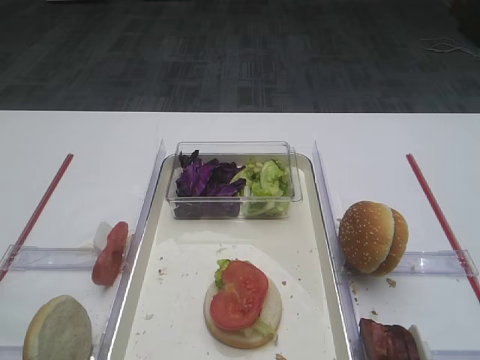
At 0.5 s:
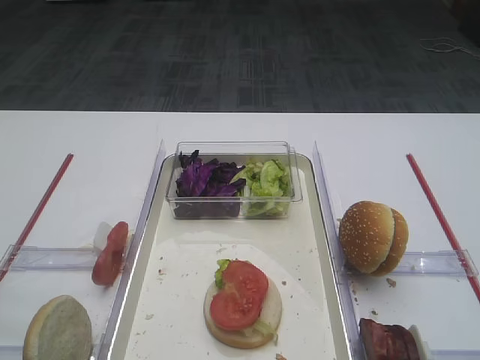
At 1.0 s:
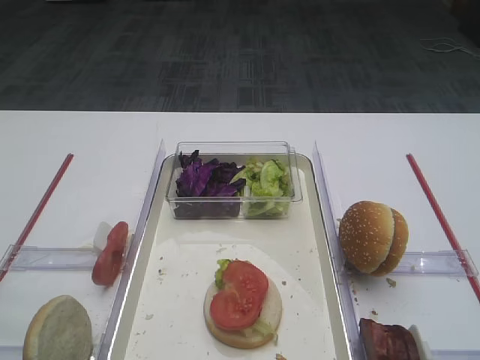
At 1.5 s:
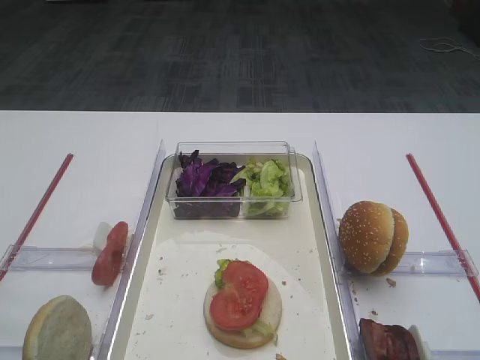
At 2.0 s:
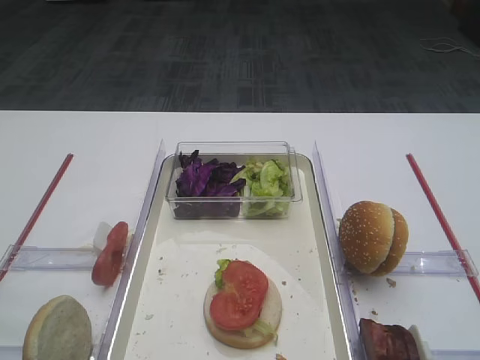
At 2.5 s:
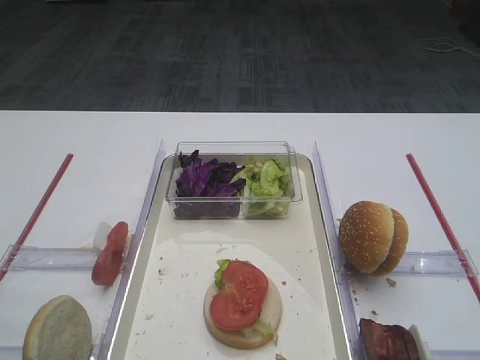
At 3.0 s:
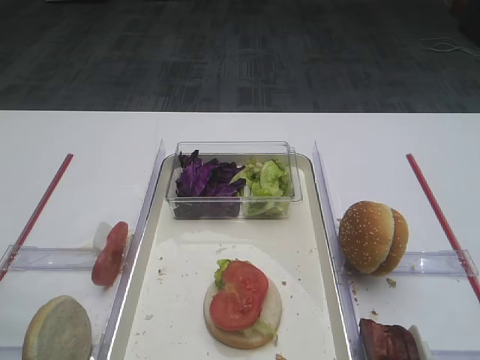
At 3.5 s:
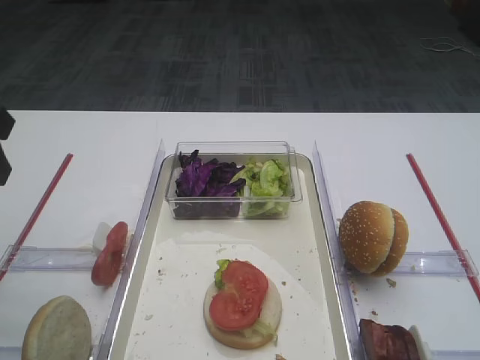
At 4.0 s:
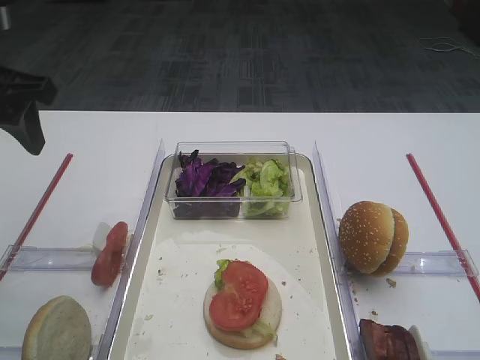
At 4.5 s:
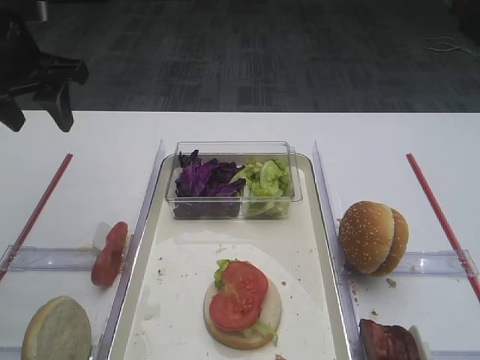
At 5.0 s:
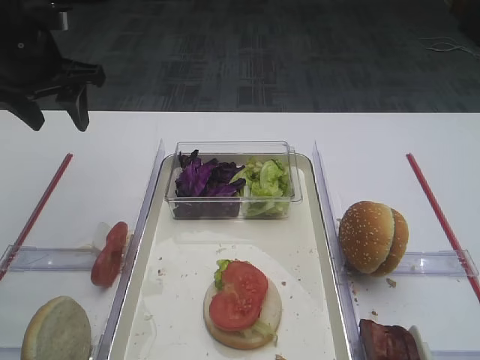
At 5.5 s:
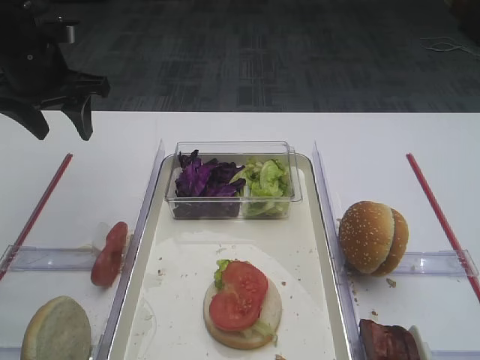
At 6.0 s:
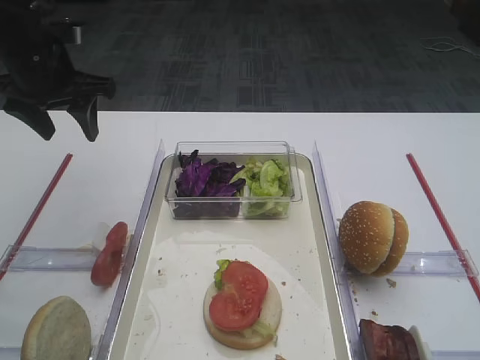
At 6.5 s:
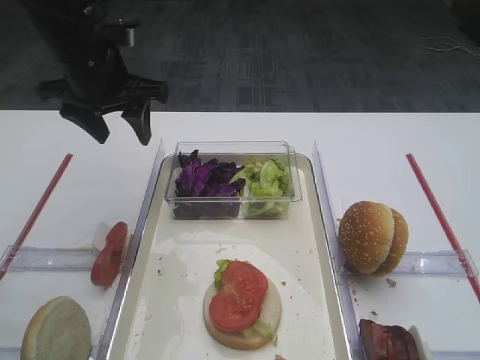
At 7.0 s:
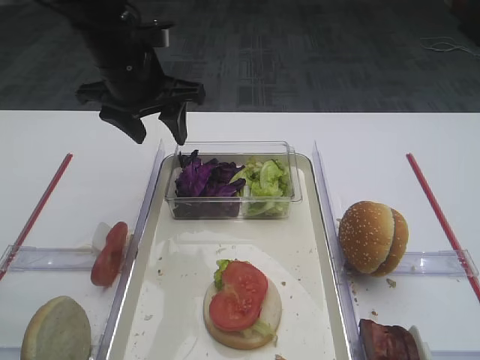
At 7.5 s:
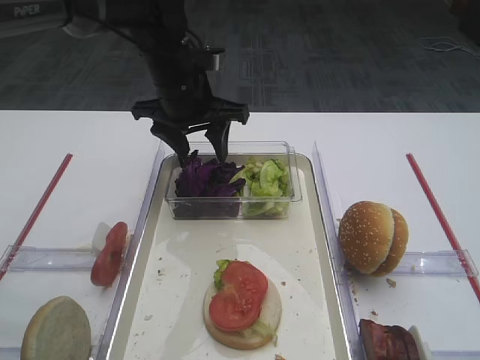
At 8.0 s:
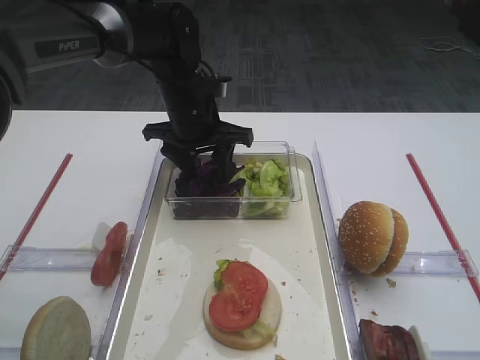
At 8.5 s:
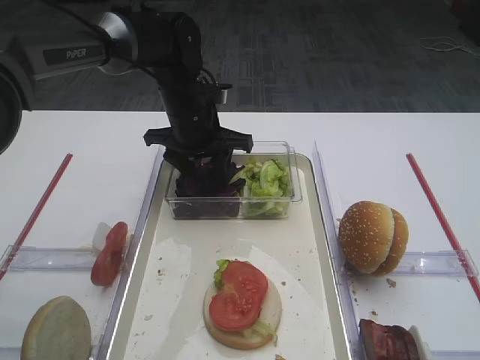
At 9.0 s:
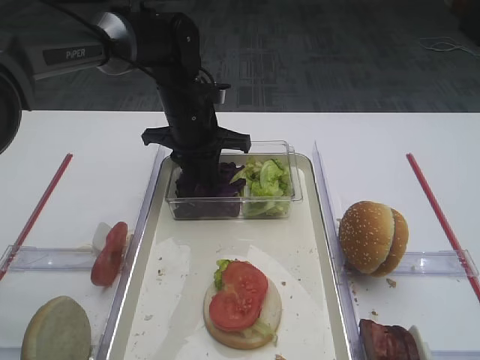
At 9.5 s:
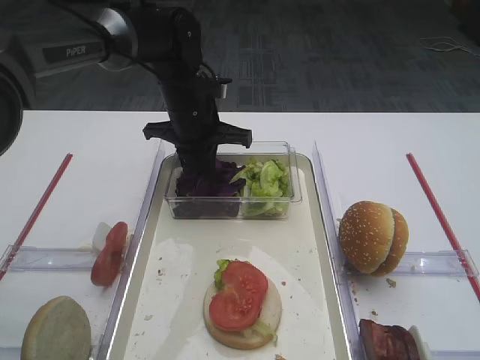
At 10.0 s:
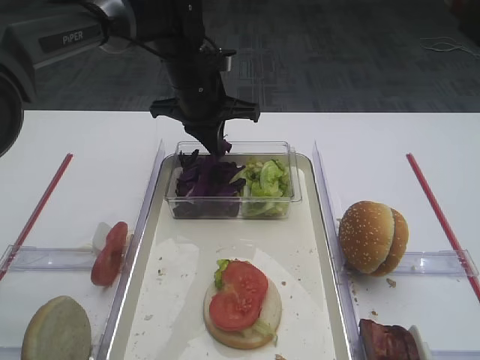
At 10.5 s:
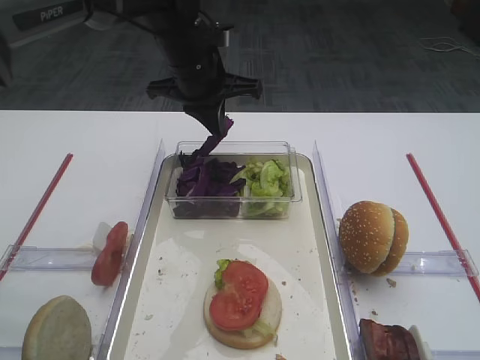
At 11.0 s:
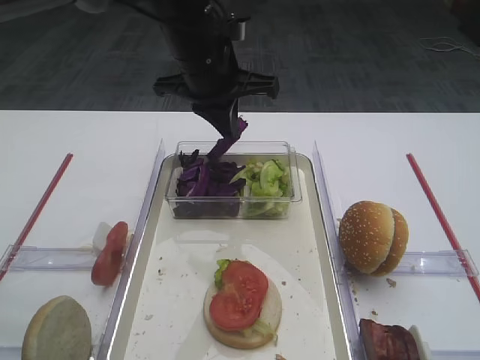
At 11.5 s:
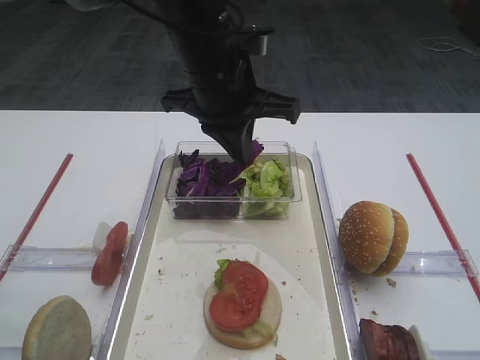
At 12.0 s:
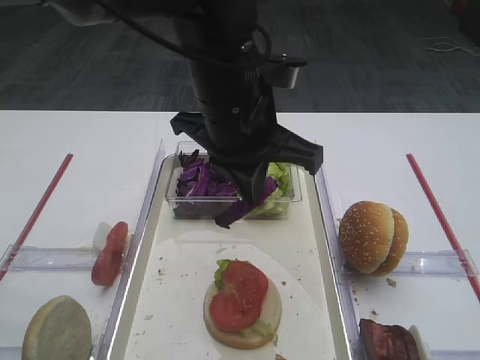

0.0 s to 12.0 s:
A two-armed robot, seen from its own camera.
Step, 0.0 to 10.5 s: Pick up the purple cabbage with the left gripper.
2.0 to 4.0 s: The left gripper moves forward, approximately 30 cm.
4.0 to 6.0 s: The left gripper moves forward, roughly 10 cm.
6.0 to 8.0 s: The left gripper goes some 20 cm to the right and downward.
8.0 to 10.0 s: The left gripper closes up.
10.0 to 12.0 s: The left gripper travels backward and upward by approximately 15 cm.

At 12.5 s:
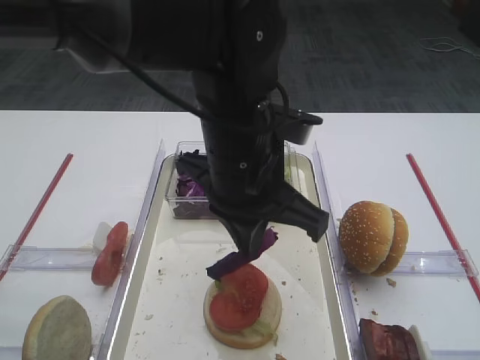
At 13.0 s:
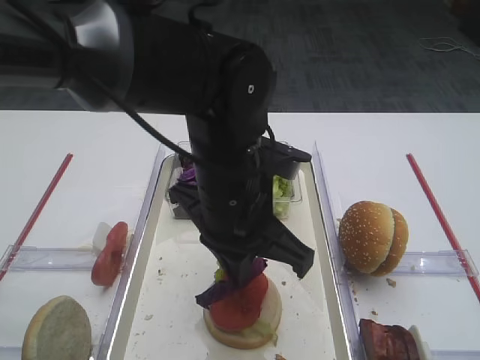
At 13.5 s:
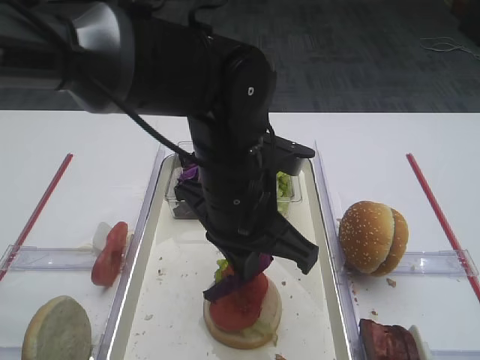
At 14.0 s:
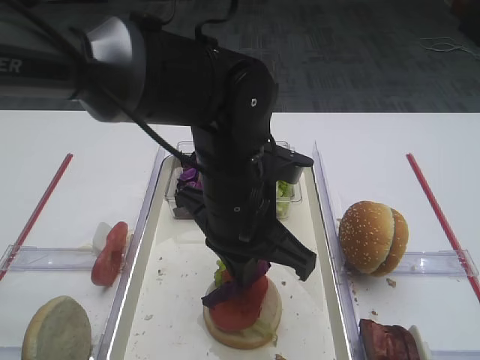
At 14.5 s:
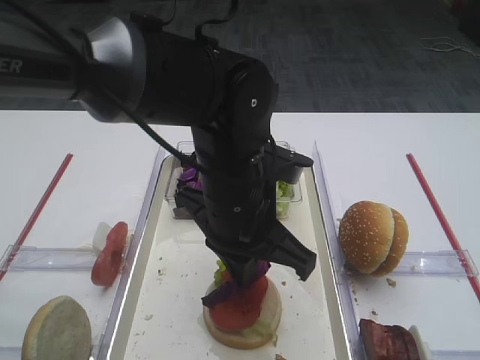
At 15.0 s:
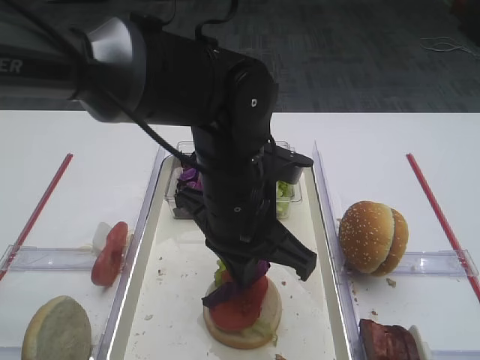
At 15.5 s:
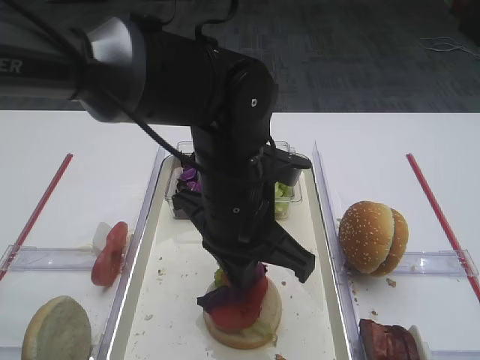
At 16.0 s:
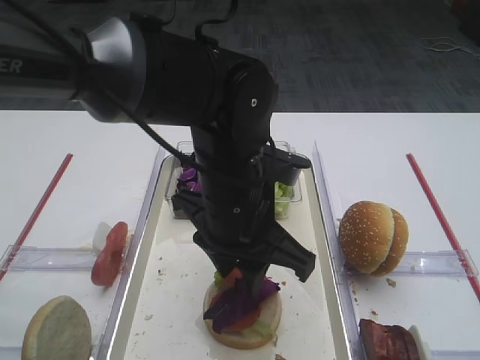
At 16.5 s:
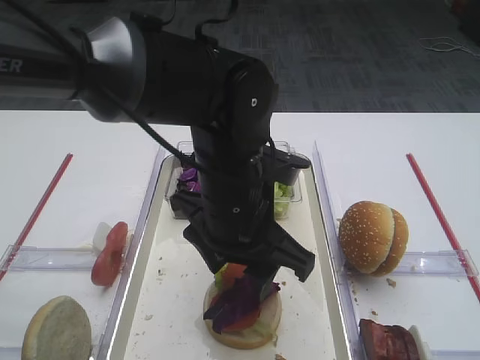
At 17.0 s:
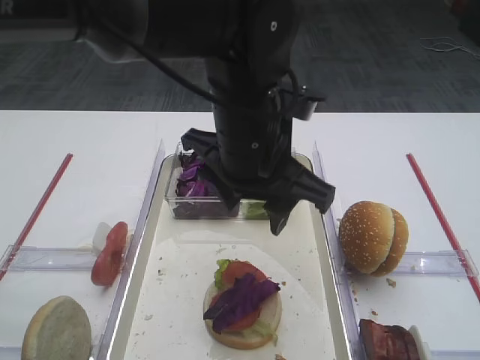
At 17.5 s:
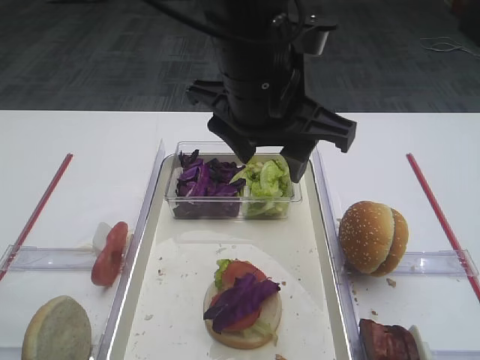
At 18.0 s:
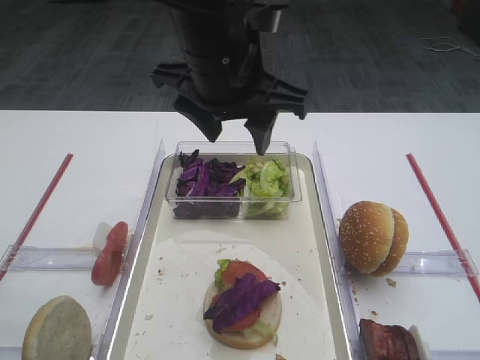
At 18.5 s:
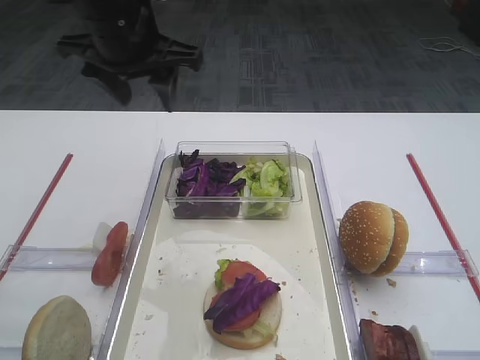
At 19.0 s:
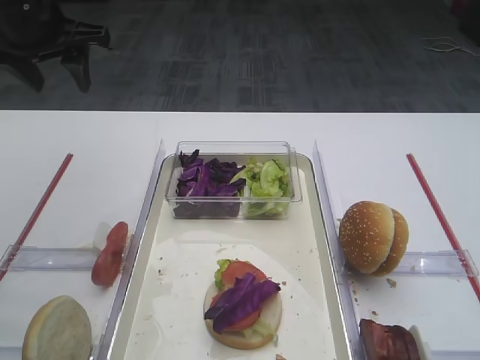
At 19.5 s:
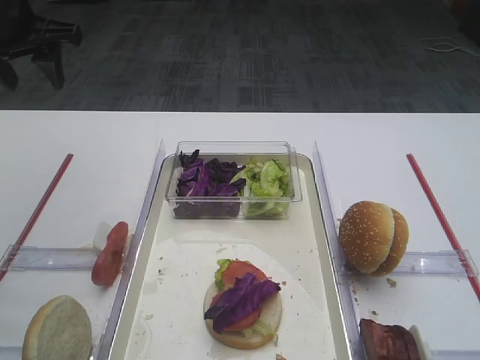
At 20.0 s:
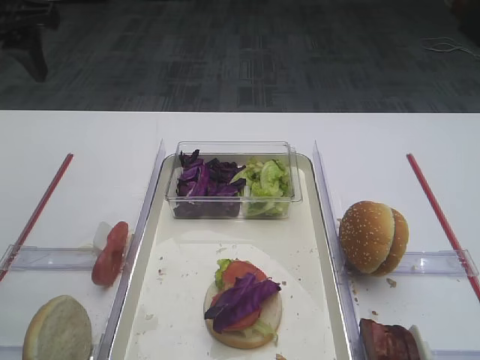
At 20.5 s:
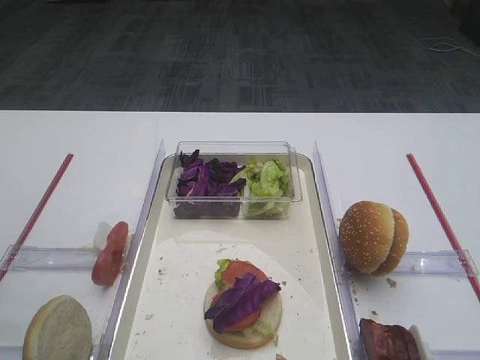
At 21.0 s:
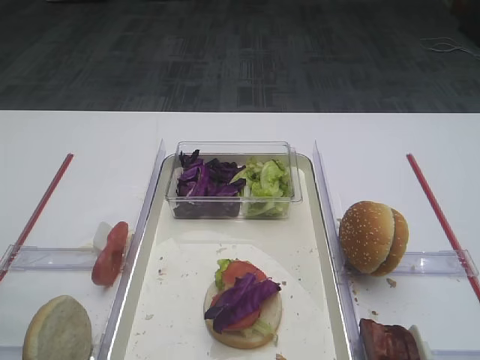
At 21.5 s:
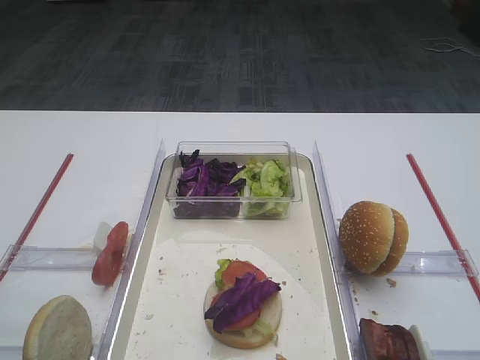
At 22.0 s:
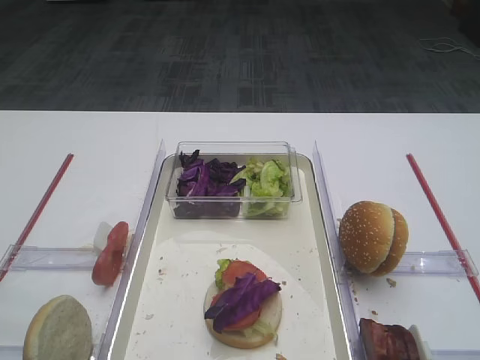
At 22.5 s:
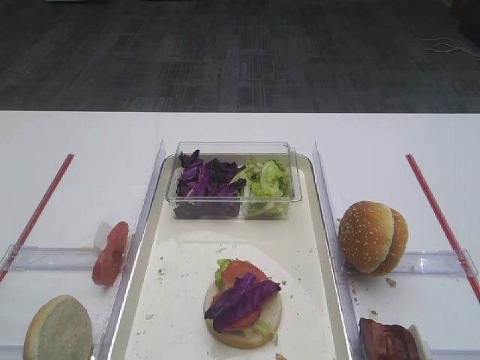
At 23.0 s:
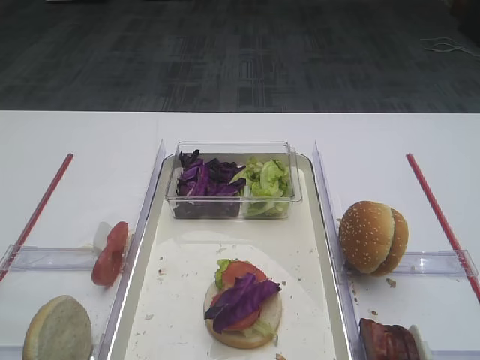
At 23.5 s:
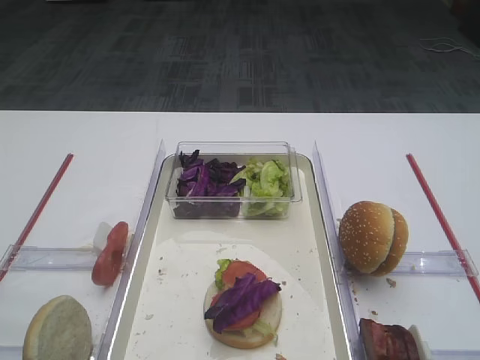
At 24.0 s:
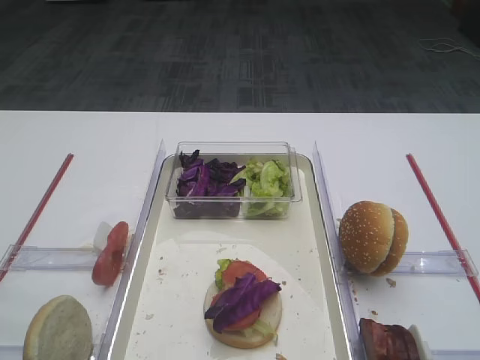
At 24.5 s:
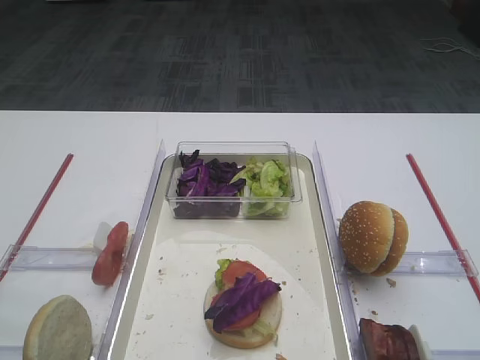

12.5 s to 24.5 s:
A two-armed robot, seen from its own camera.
Step, 12.5 to 16.5 s: Place the purple cabbage on the tomato slice with the left gripper.
12.5 to 14.5 s: The grippers move only a little.
14.5 to 16.5 s: The left gripper opens its fingers.
16.5 to 18.5 s: The left gripper shifts some 20 cm to the left, forward and upward.
18.5 to 20.5 s: The left gripper travels to the left and backward by roughly 20 cm.

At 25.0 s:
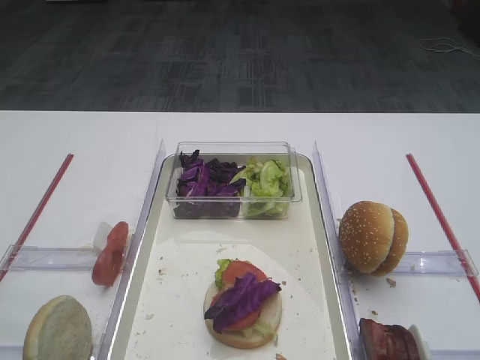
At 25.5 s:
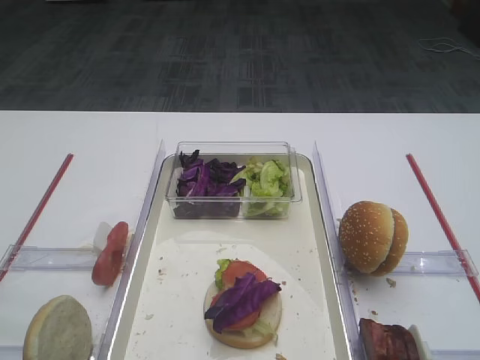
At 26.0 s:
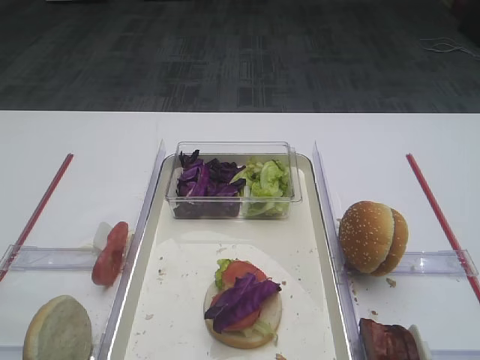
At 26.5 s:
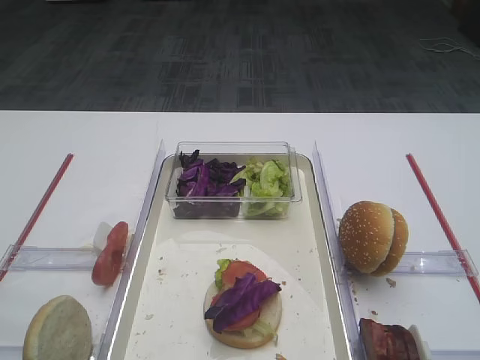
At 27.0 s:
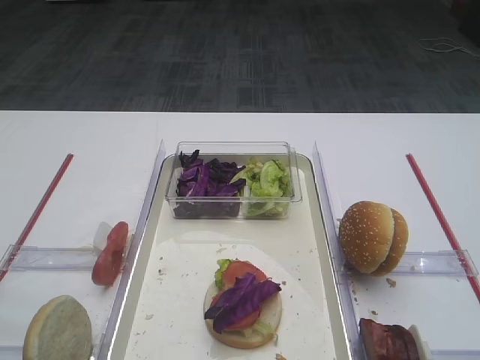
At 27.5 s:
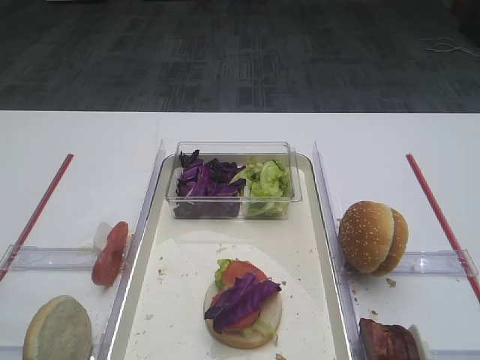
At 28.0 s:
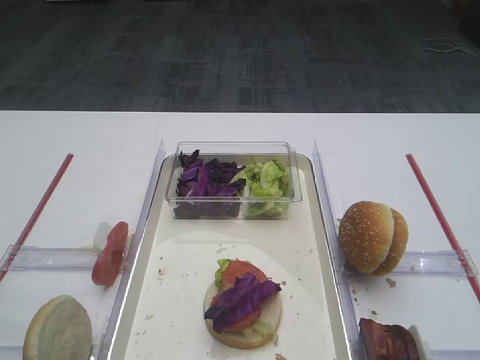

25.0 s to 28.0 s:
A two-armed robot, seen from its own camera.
25.0 to 28.0 s: Neither gripper changes place.
